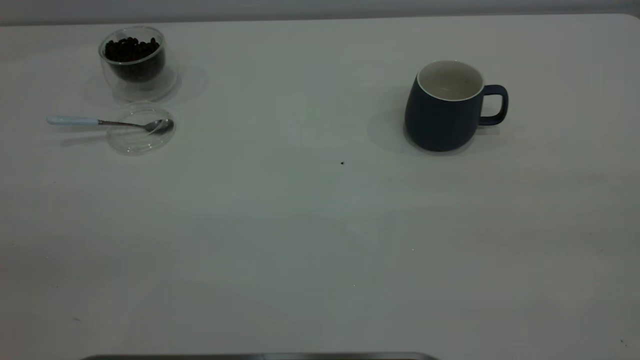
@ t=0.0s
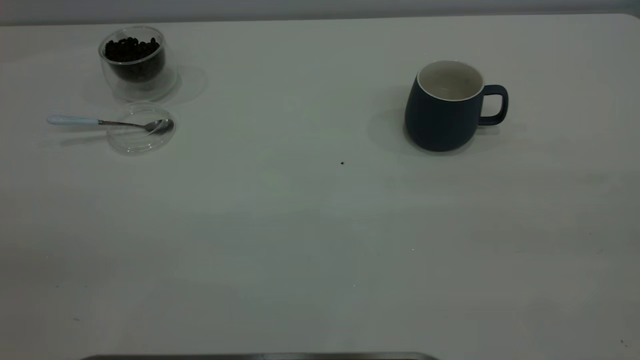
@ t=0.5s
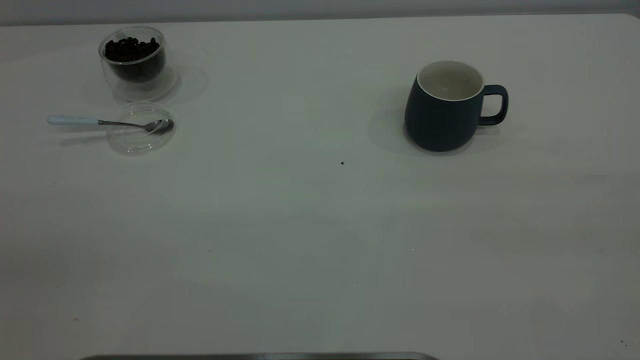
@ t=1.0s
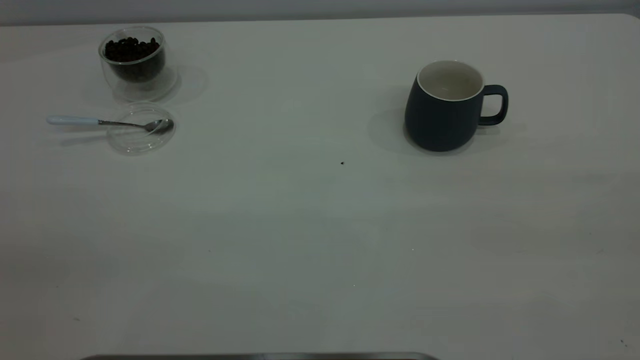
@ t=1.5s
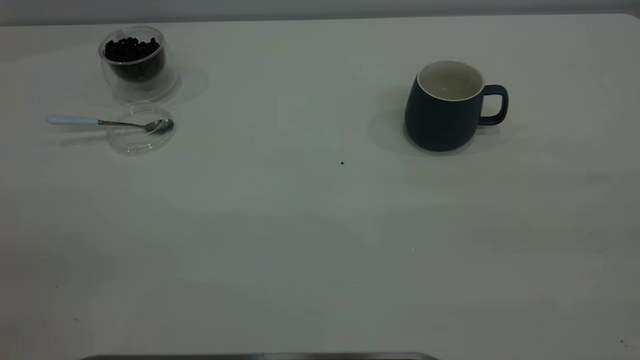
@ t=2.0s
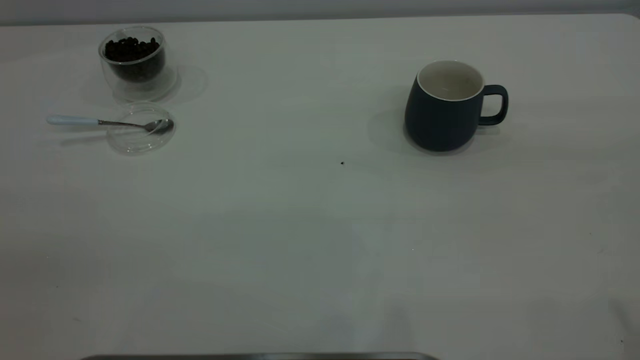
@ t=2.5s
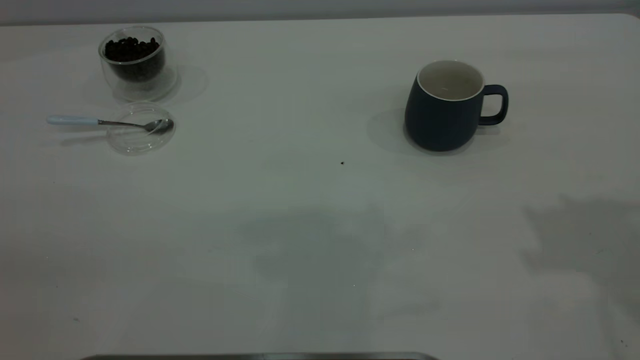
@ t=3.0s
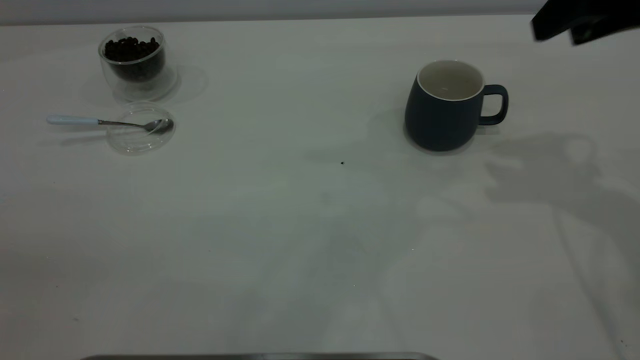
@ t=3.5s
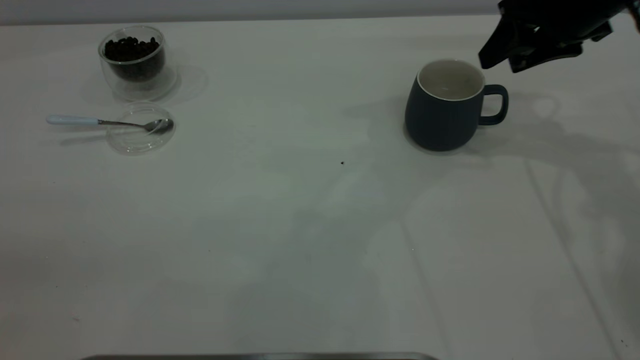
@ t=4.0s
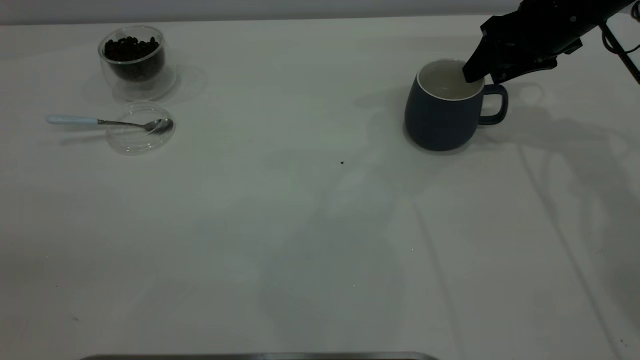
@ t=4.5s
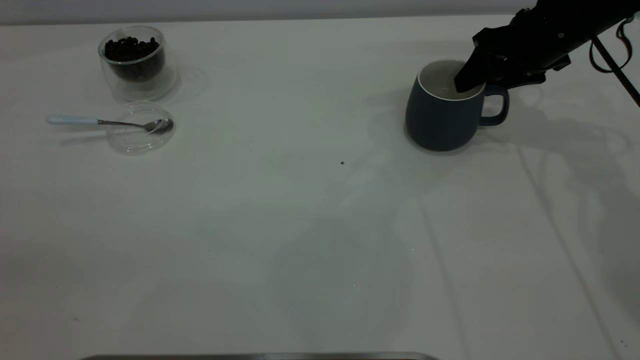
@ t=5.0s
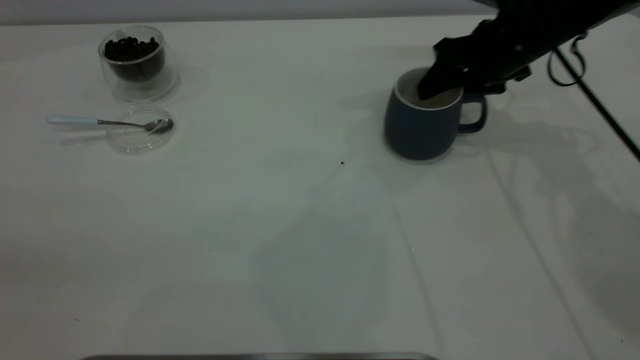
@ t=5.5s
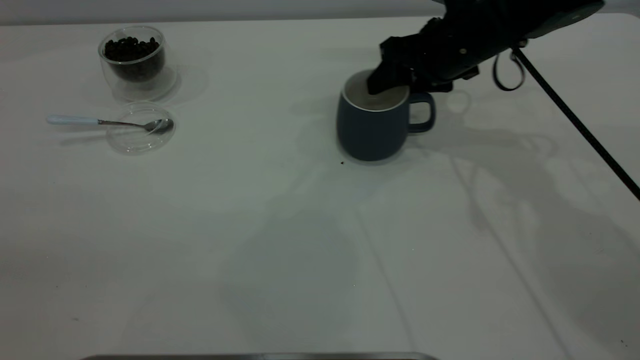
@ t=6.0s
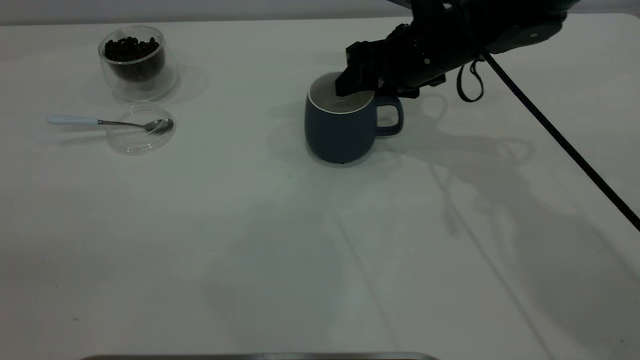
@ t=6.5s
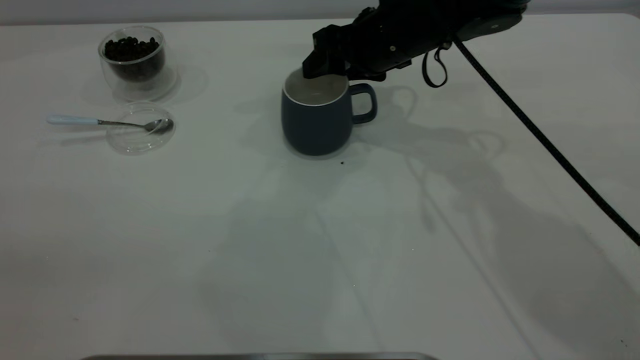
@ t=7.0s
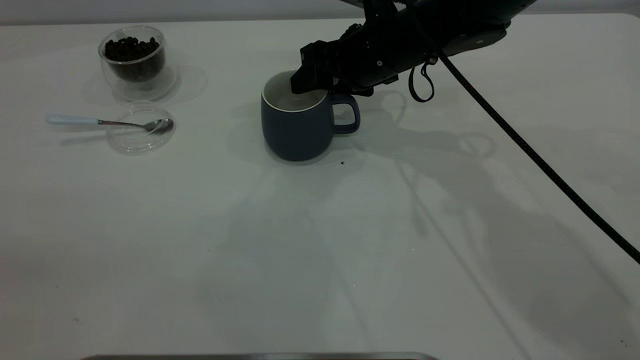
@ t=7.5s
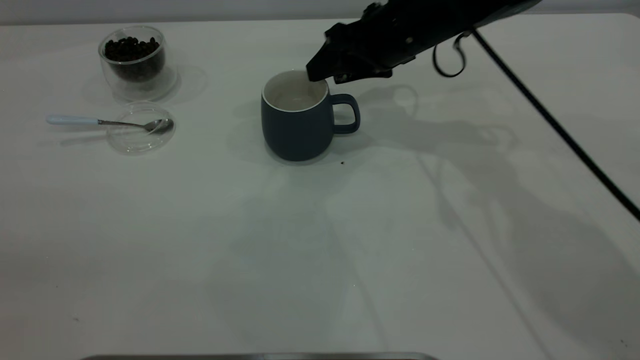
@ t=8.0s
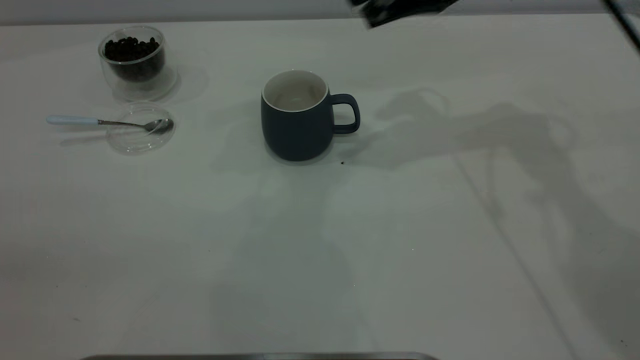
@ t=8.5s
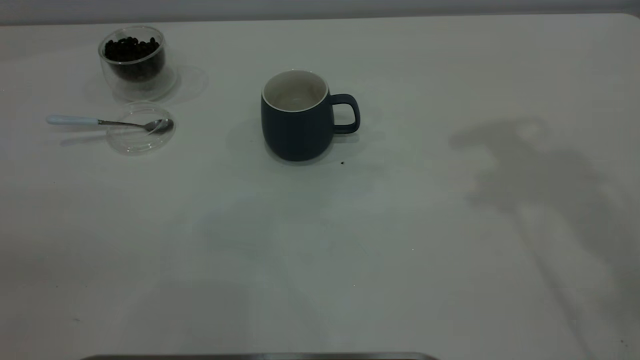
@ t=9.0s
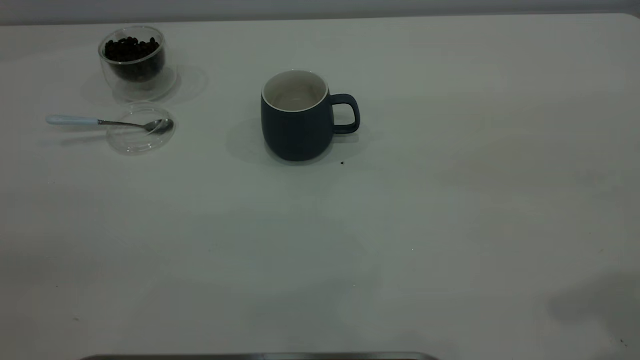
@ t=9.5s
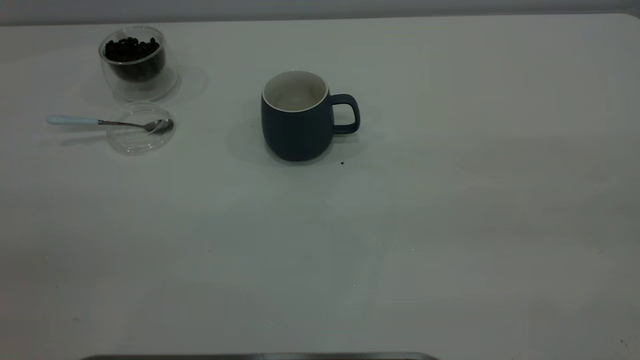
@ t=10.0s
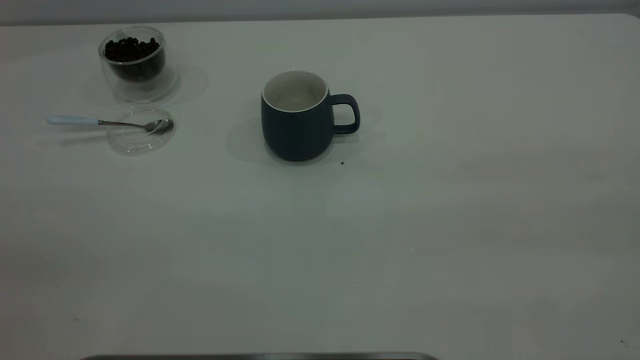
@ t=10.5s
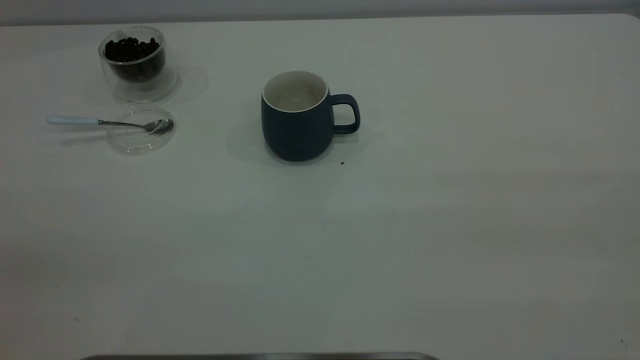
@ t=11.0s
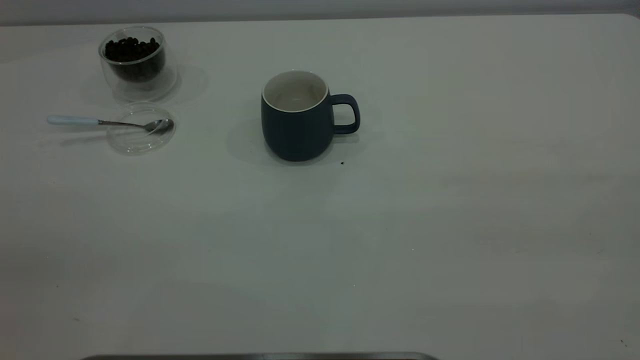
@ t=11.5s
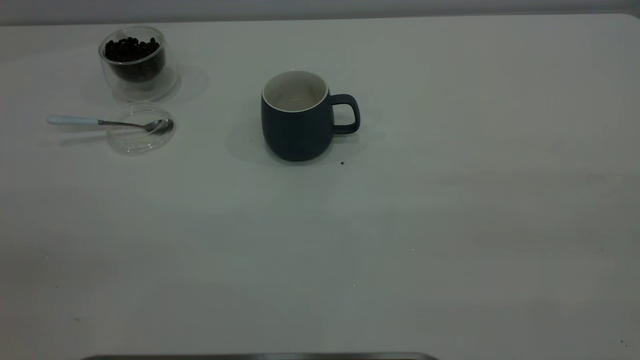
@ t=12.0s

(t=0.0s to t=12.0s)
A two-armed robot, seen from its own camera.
Task of the whole recording: the right gripper place the grey cup in the center of the table, the left gripper take the blue spoon from the cup lid and scoop out the coffee beans from the coffee cup and put them into the grey cup, the left gripper put the spoon back into the cup lid.
Step, t=0.0s - t=8.0s: Move the cup to the center of view.
t=0.0s - t=2.0s: Neither gripper changes place.
t=2.0s - t=4.0s: The right gripper is displaced forward and downward by some 50 cm.
t=4.0s - t=6.0s: The right gripper is displaced to the left and downward by roughly 10 cm.
t=6.0s - t=8.0s: The right gripper heads to the left, covering some 5 cm.
t=8.0s - t=10.0s: The right gripper travels backward, upward and to the right by some 50 cm.

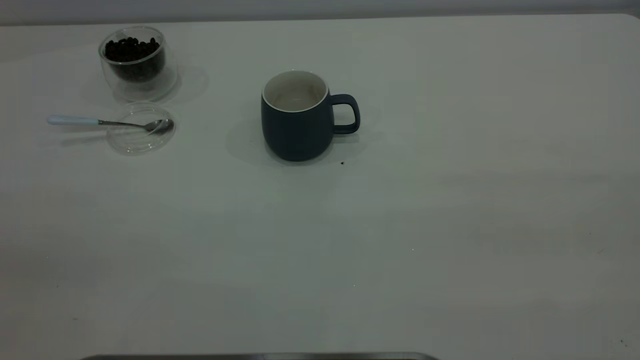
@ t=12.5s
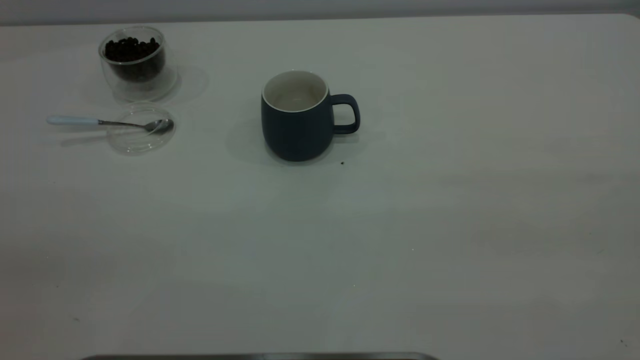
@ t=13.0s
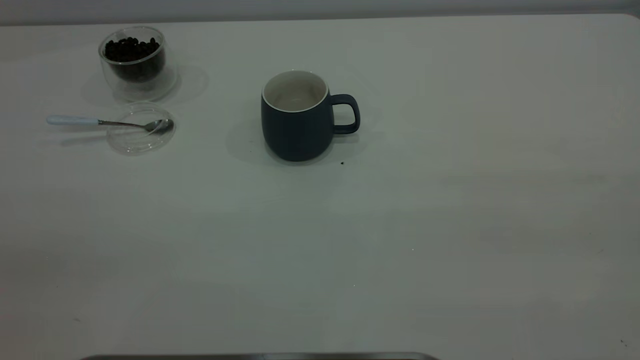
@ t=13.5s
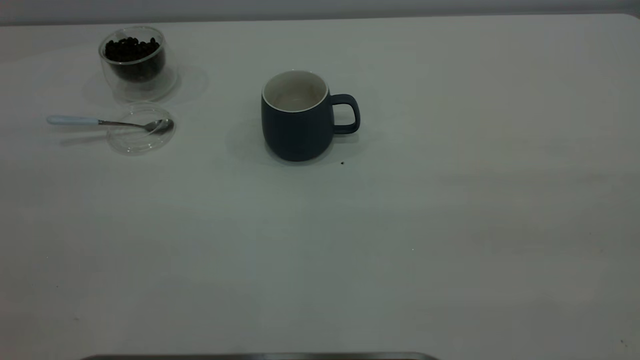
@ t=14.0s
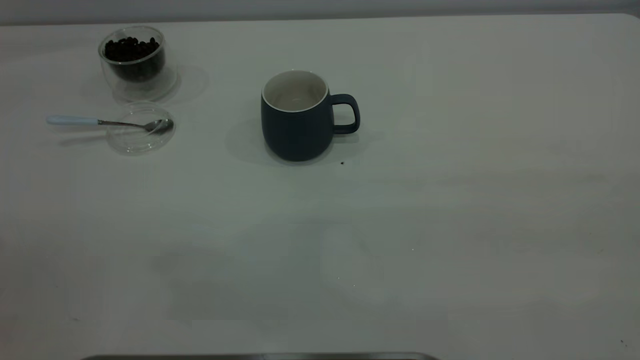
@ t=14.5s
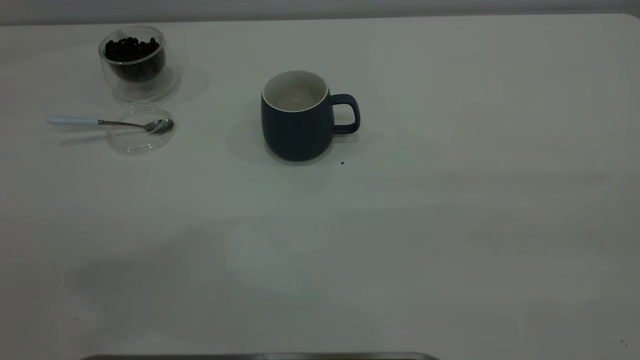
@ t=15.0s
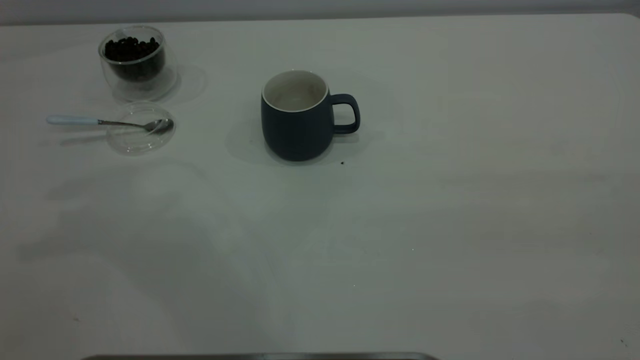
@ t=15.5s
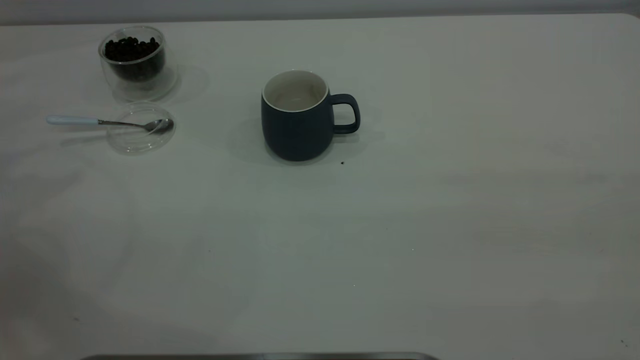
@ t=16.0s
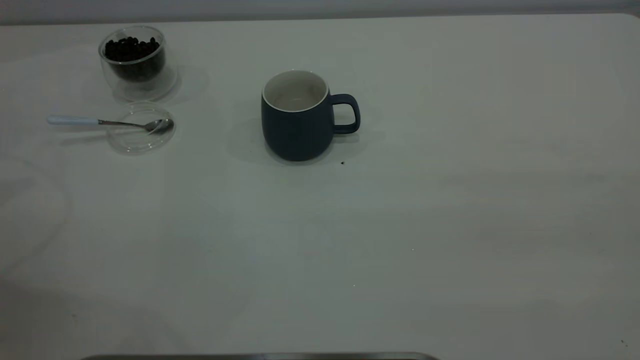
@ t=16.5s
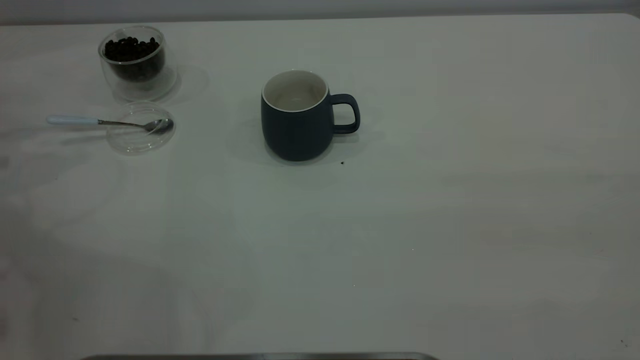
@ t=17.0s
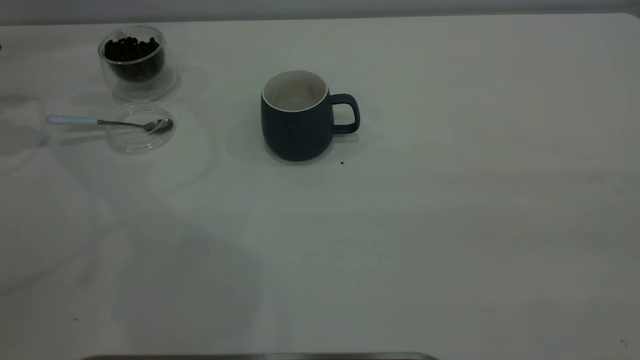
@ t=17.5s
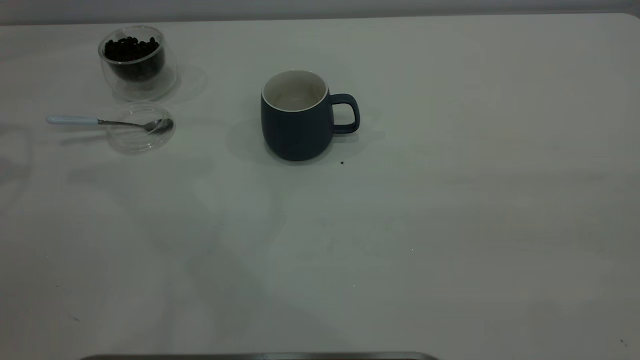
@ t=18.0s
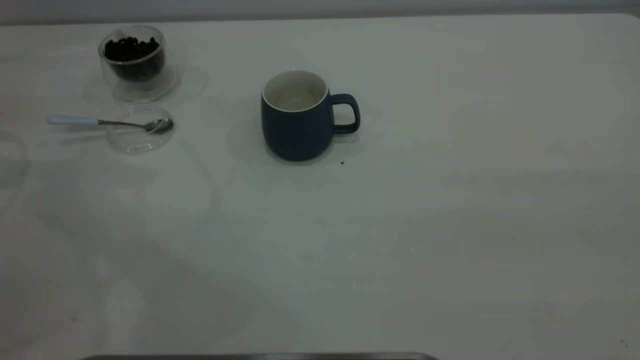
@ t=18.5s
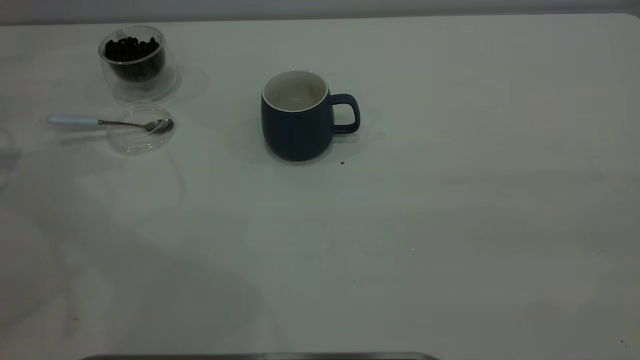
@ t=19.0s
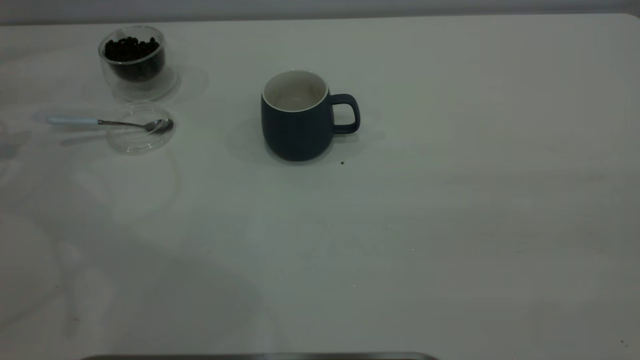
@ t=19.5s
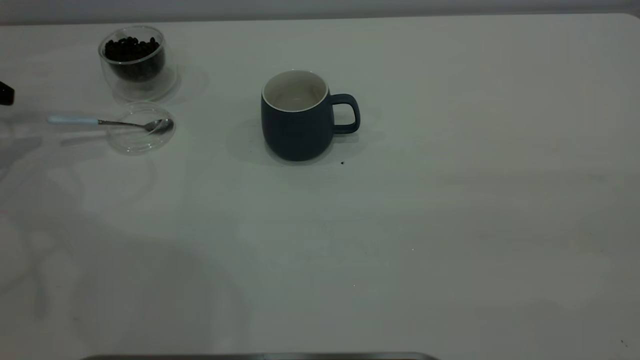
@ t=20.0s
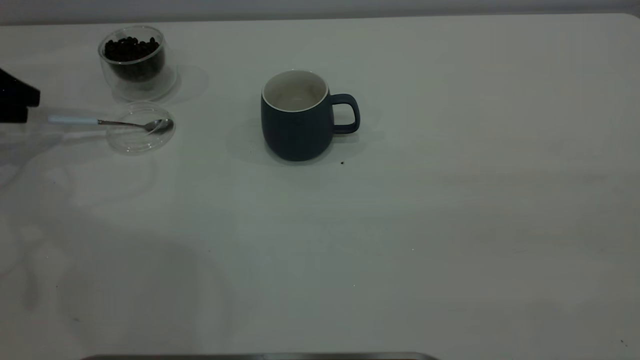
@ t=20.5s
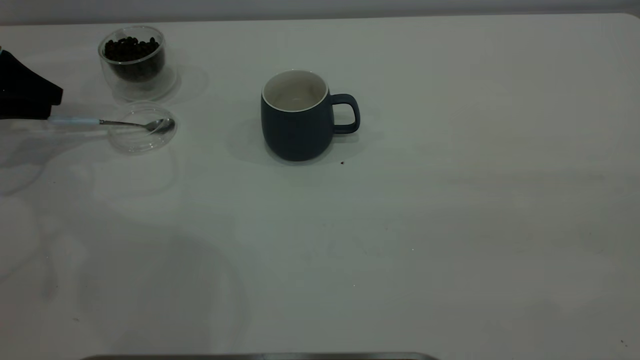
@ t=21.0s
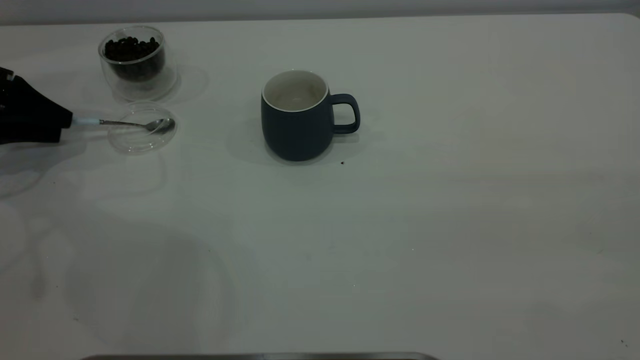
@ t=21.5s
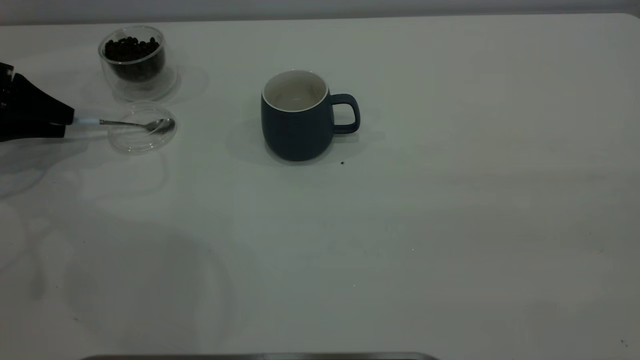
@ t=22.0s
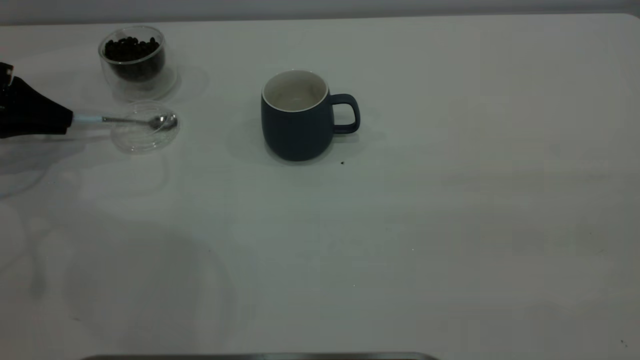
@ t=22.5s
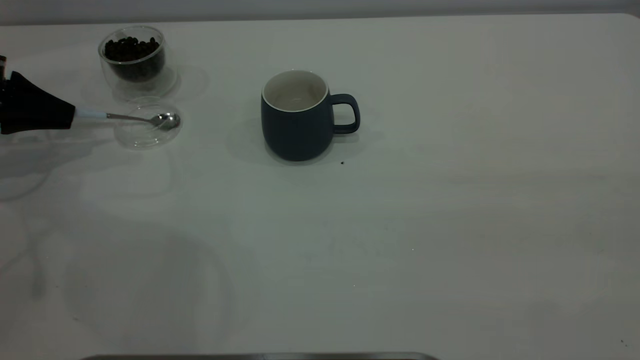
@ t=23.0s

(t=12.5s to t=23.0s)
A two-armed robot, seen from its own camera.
Task of the whole recording: the right gripper place the grey cup in the center of the table, the left gripper take the blue spoon from the cup lid and scoop out the coffee beans from the coffee cup and put them into the grey cup, the left gripper put the spoon back into the cup lid.
t=19.0s - t=21.0s: The left gripper travels downward by some 5 cm, and opens.
t=21.0s - t=23.0s: The left gripper closes.
